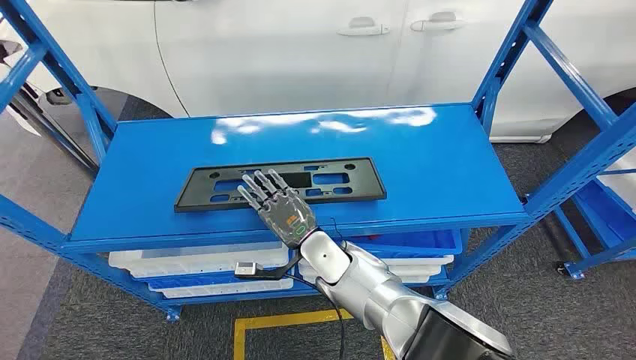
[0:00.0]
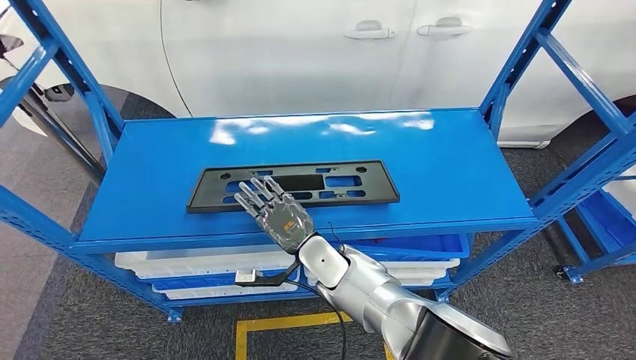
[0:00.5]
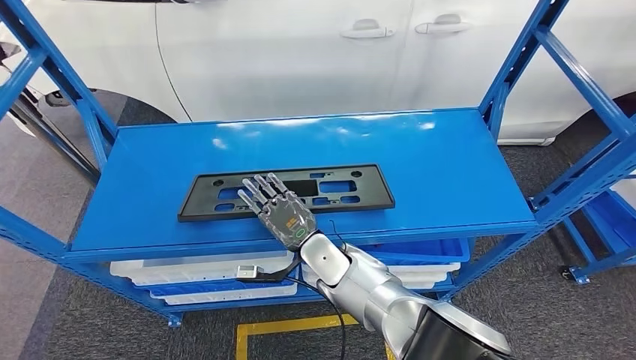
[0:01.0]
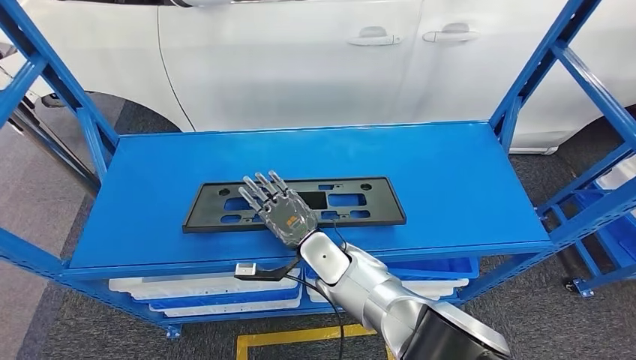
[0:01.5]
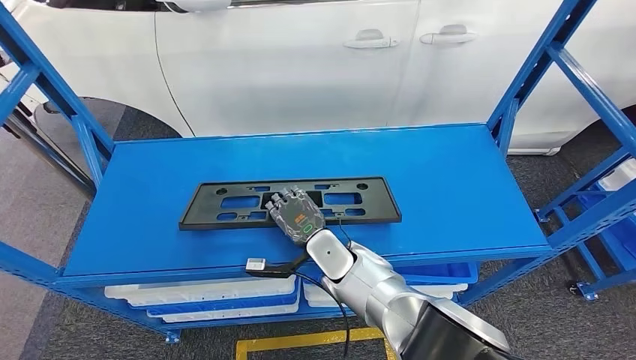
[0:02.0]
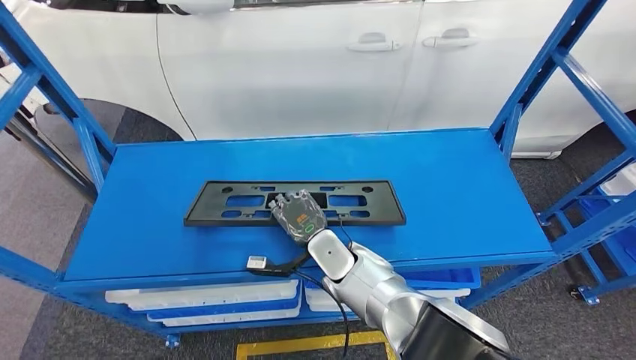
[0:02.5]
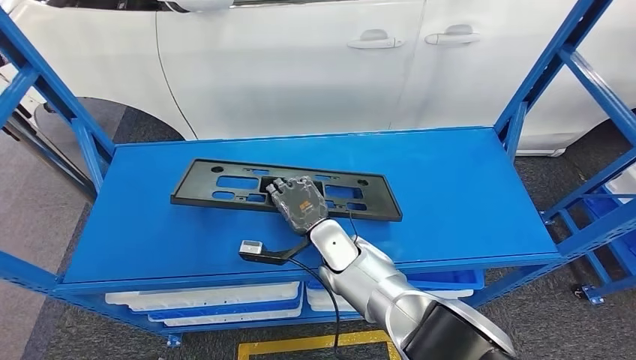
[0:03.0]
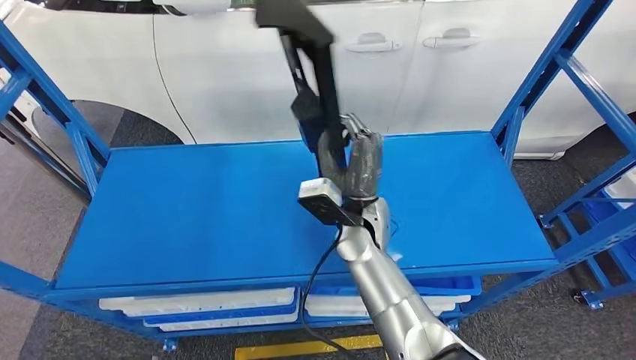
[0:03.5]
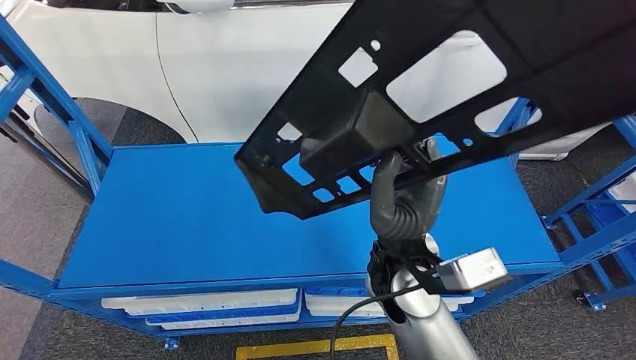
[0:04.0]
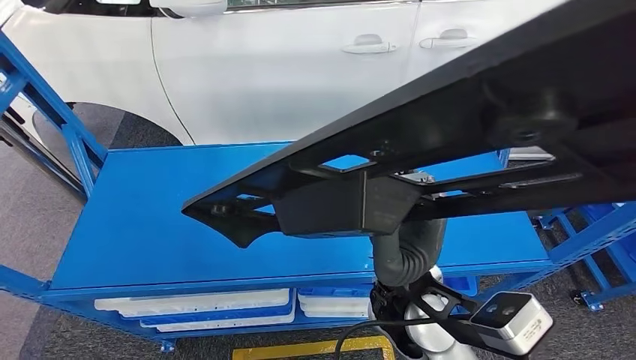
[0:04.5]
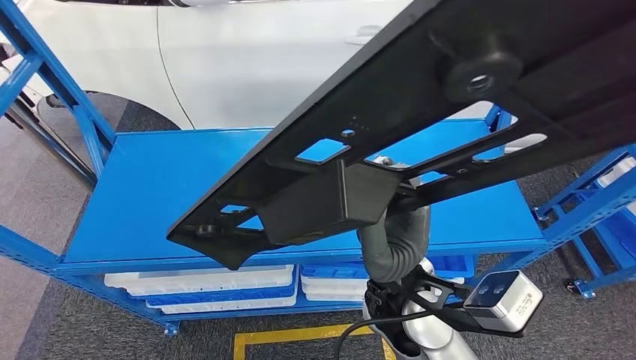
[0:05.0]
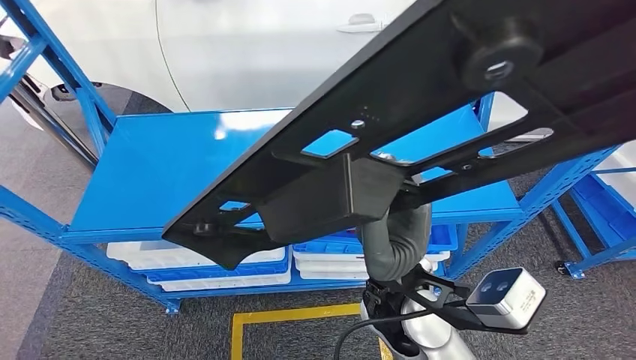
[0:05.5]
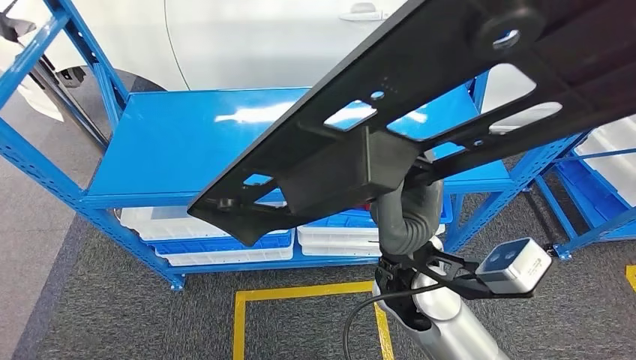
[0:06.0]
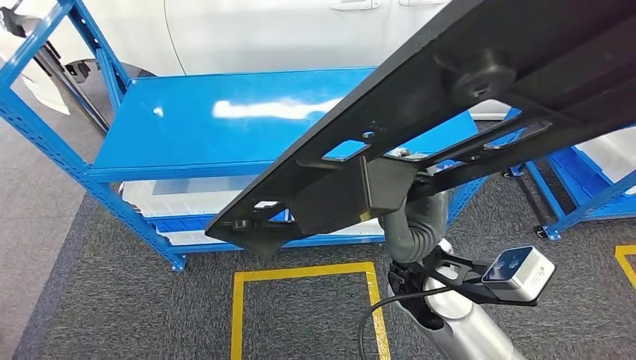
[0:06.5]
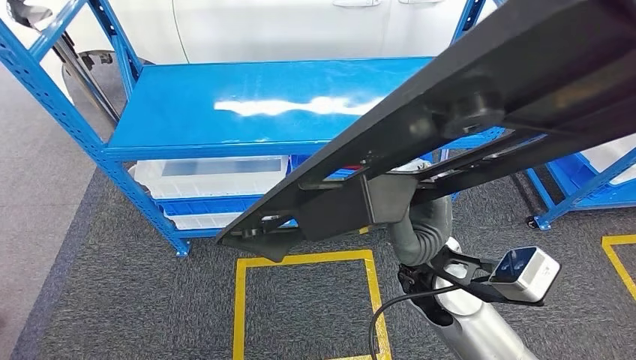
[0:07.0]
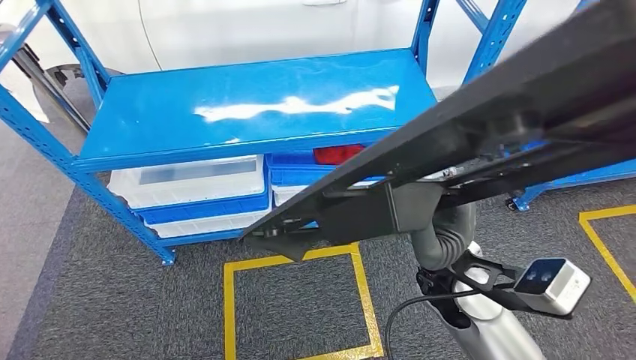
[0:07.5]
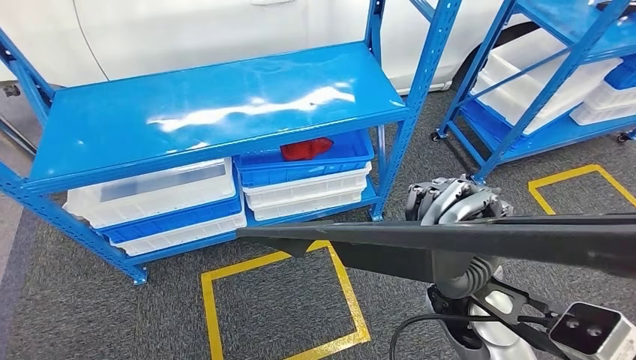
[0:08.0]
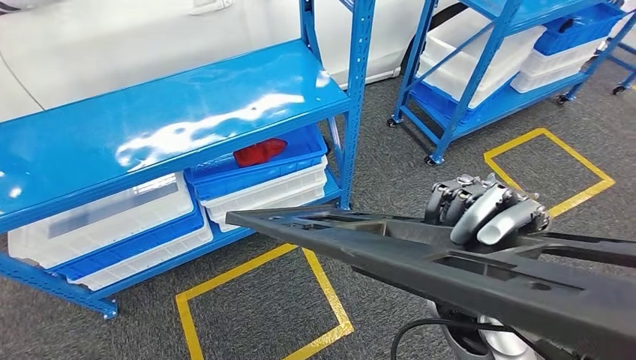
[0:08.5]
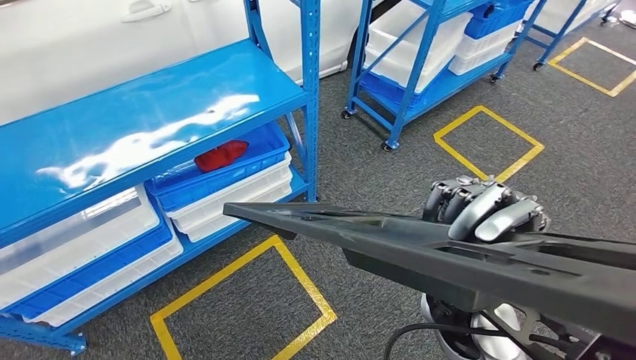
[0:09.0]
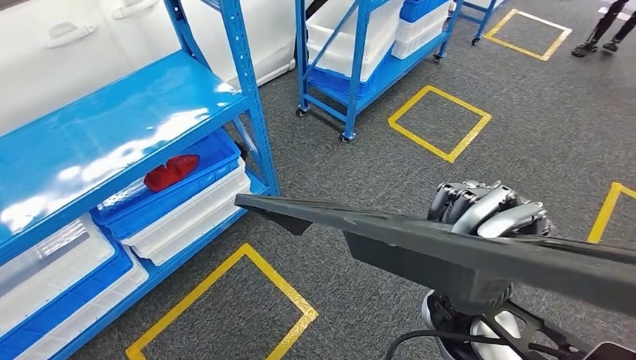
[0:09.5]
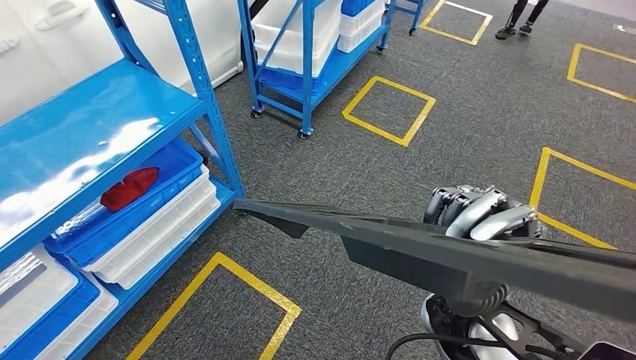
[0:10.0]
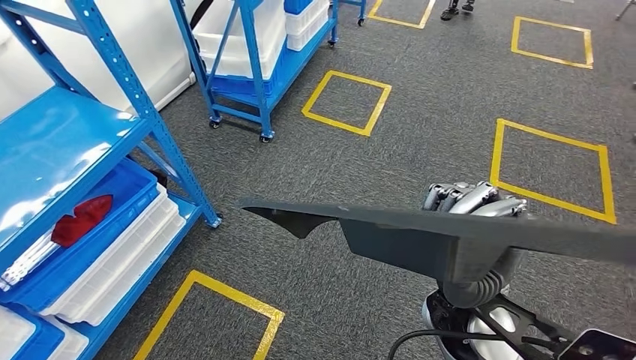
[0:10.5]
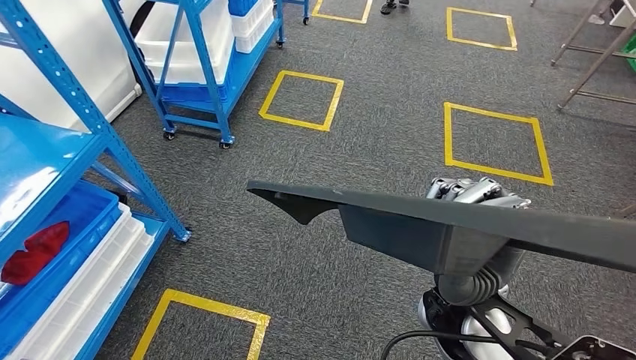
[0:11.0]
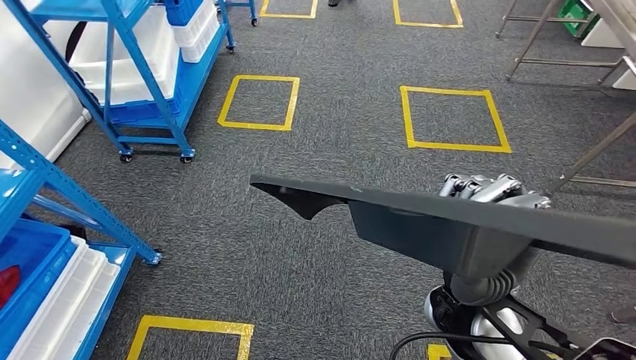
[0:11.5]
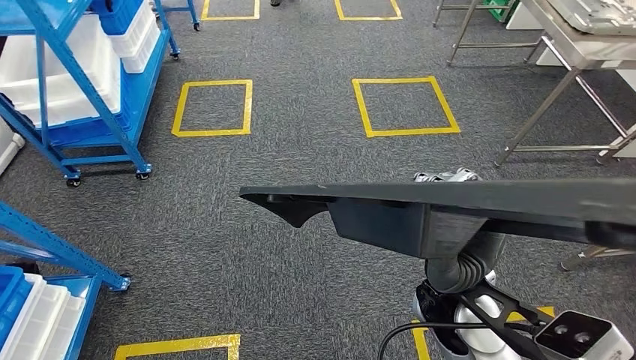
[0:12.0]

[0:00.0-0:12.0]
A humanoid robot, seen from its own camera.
Step, 0:00.0 to 0:02.5: Pick up the large material from the shelf.

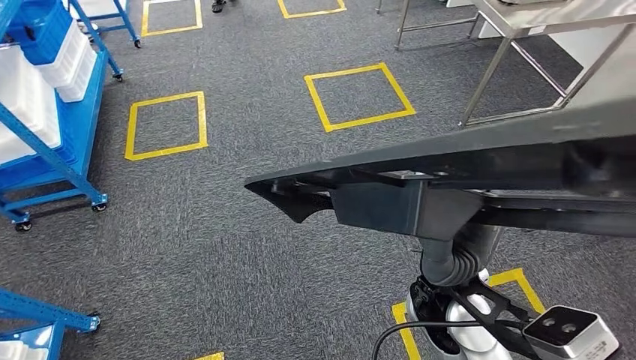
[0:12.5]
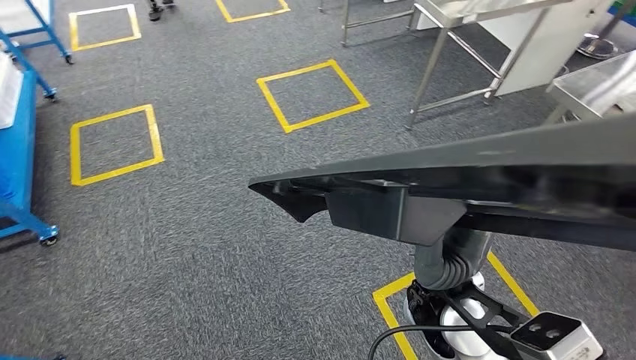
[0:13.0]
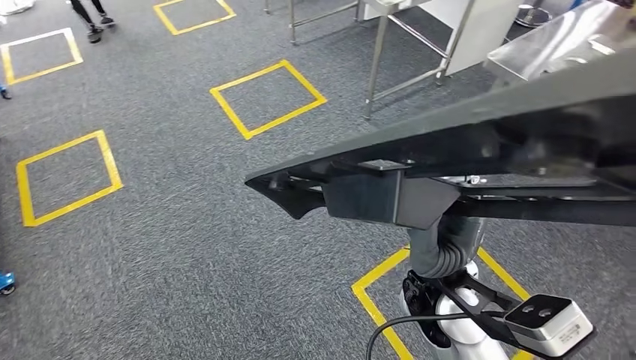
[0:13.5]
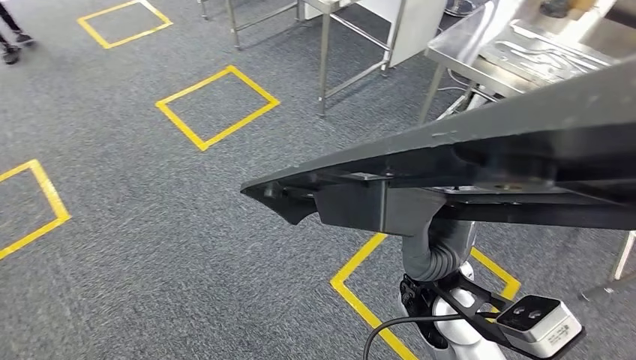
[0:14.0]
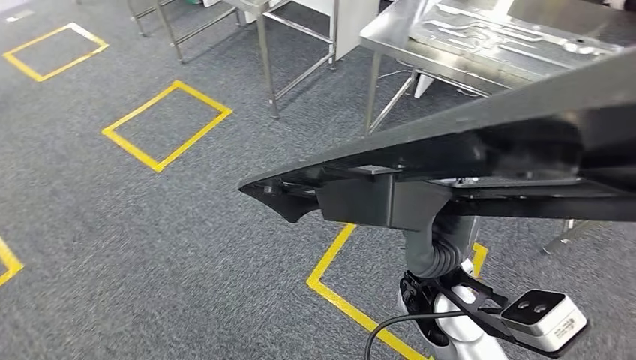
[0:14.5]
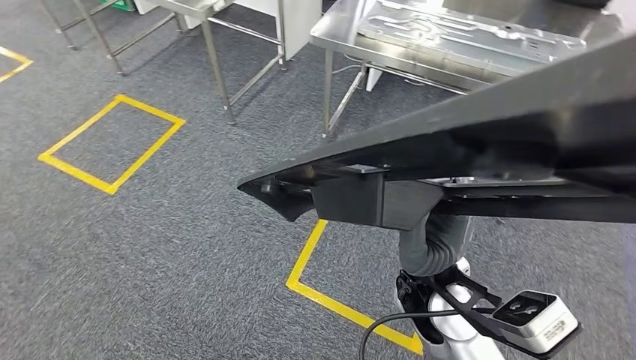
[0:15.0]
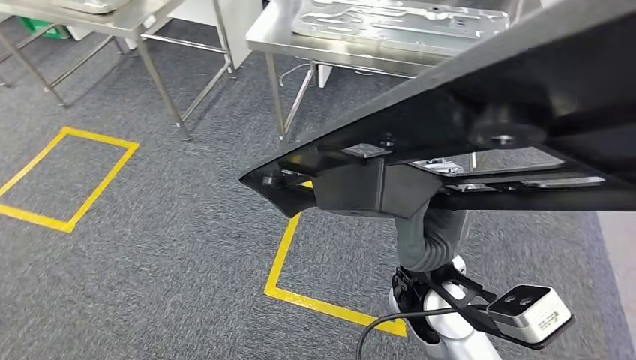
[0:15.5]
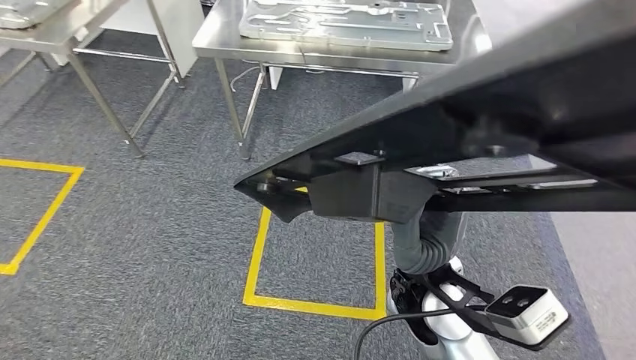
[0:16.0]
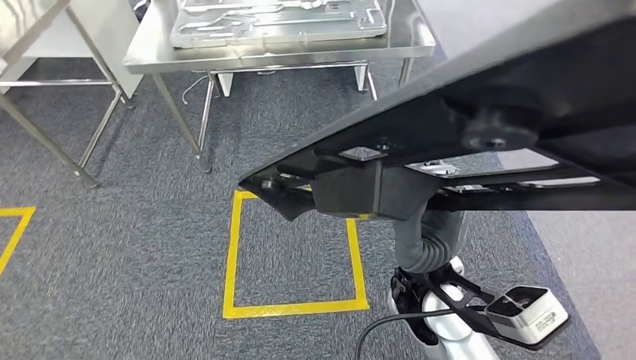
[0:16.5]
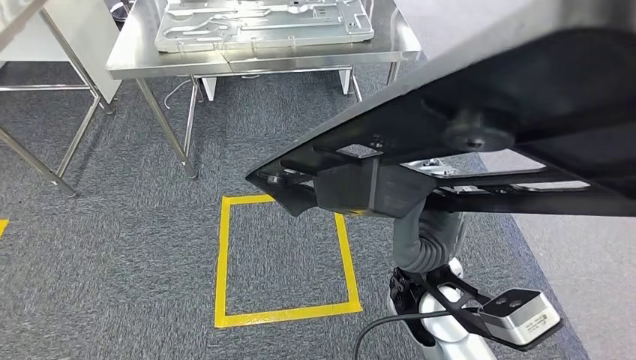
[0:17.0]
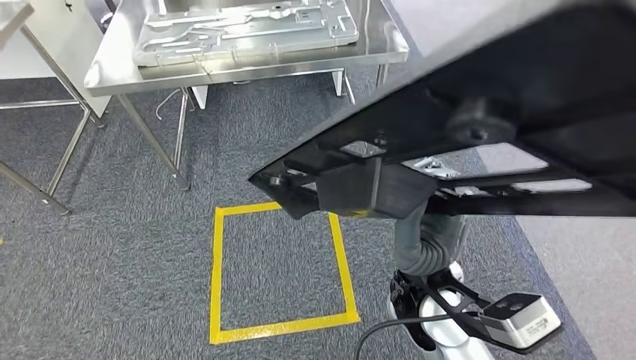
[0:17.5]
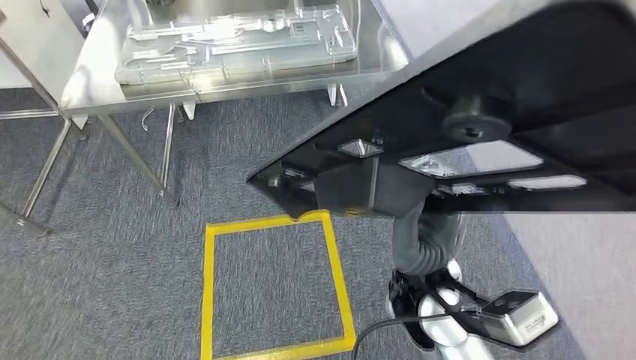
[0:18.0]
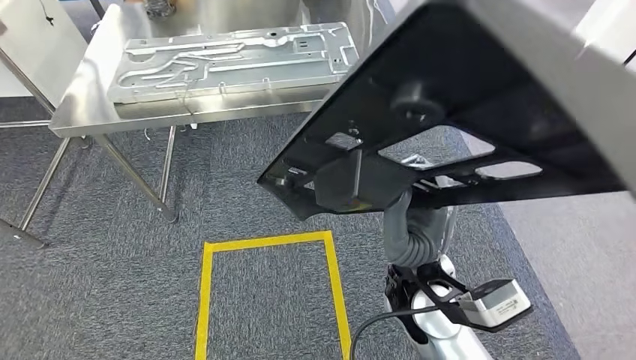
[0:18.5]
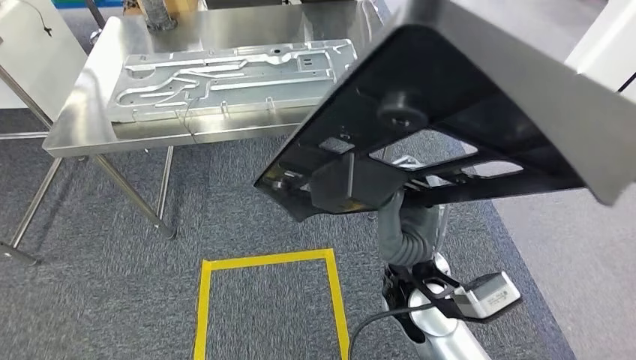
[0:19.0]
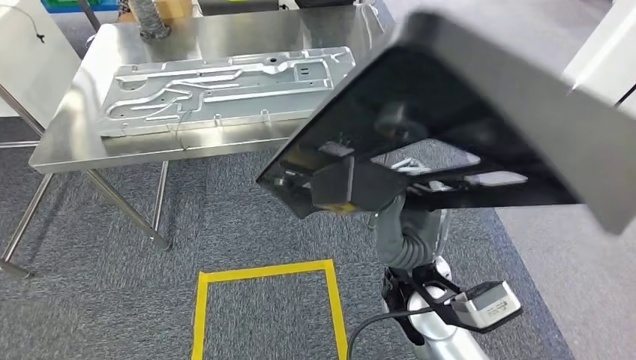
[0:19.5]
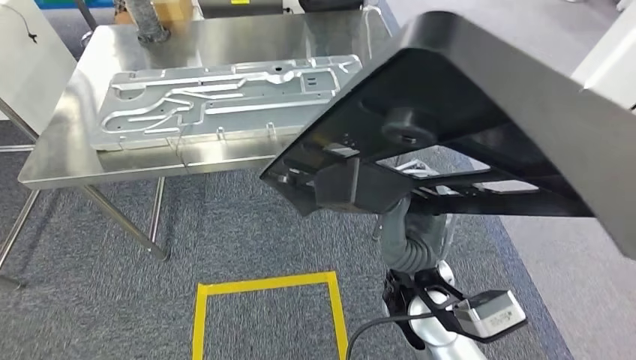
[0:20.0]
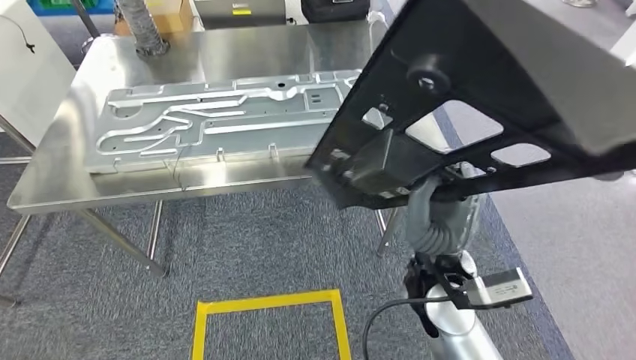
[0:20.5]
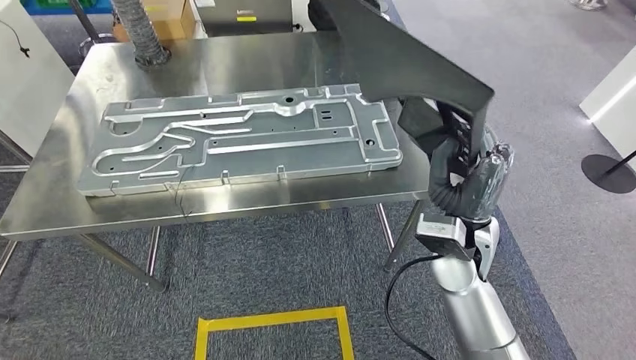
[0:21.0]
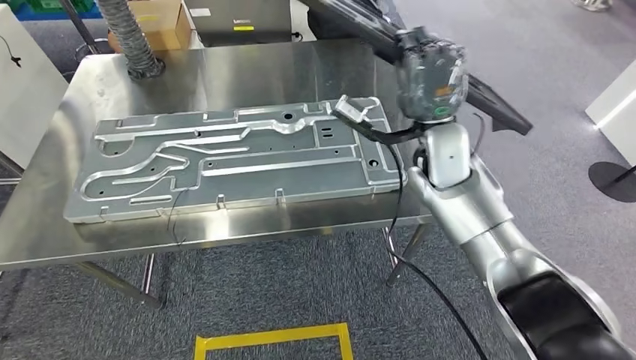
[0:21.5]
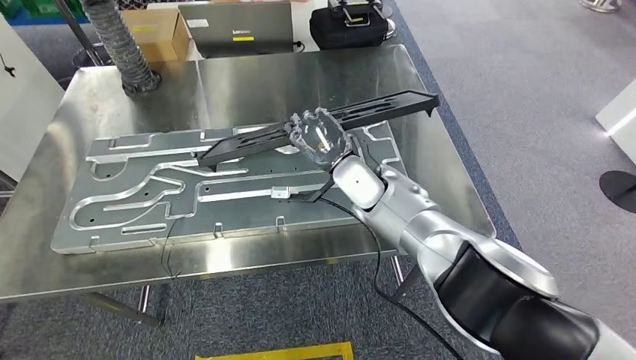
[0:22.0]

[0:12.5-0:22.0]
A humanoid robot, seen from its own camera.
Step, 0:12.5 to 0:21.0: Move the large material to the workbench.
